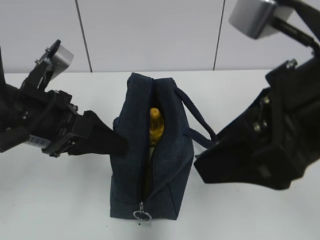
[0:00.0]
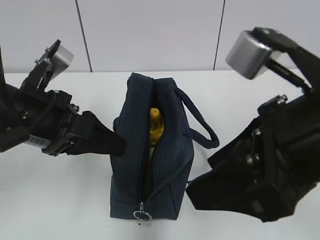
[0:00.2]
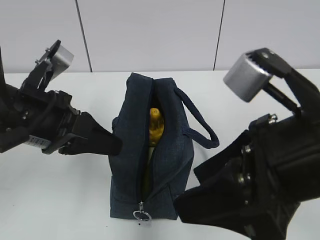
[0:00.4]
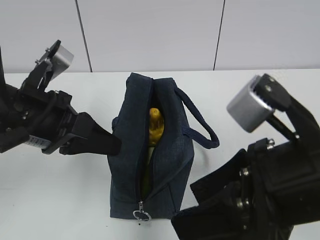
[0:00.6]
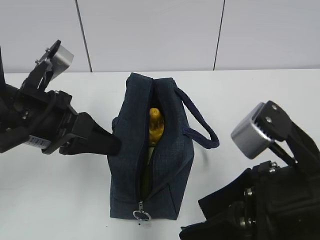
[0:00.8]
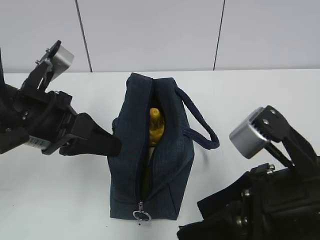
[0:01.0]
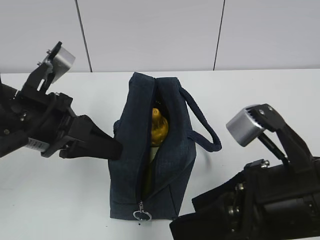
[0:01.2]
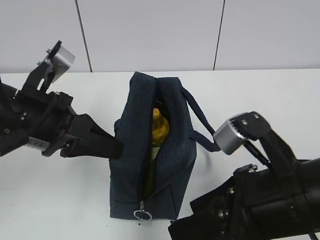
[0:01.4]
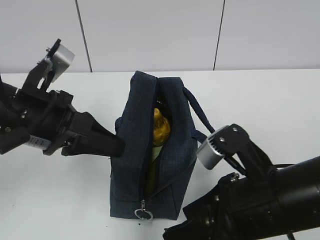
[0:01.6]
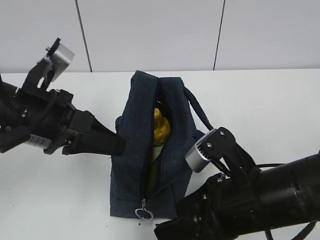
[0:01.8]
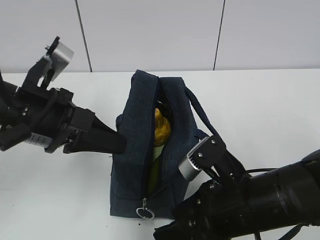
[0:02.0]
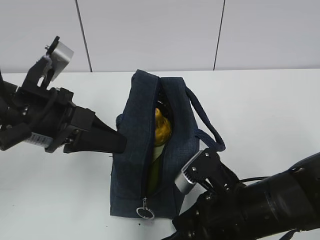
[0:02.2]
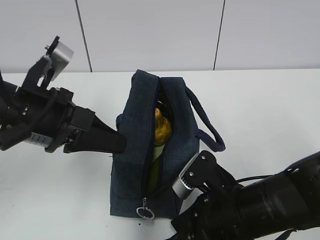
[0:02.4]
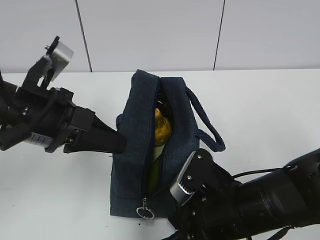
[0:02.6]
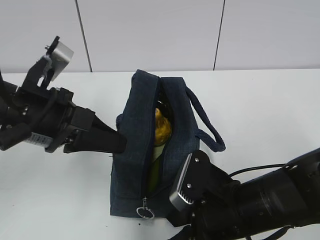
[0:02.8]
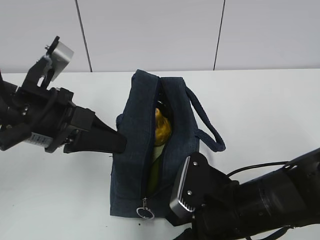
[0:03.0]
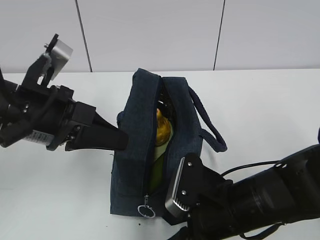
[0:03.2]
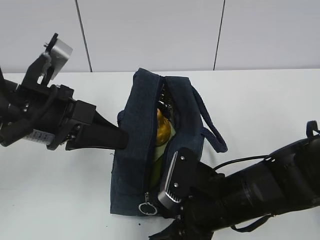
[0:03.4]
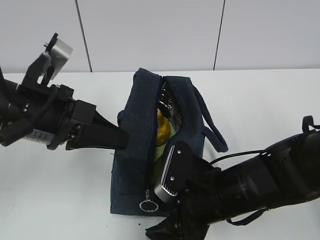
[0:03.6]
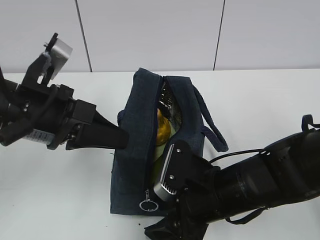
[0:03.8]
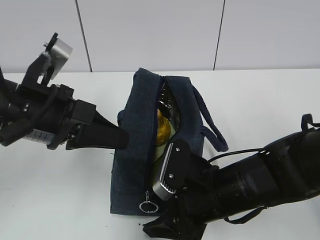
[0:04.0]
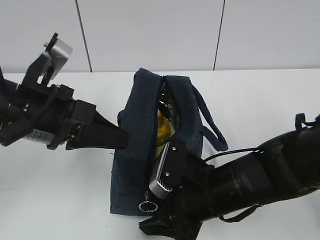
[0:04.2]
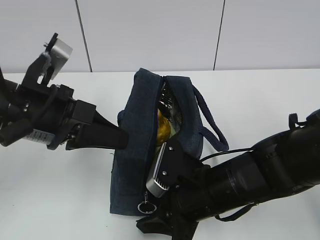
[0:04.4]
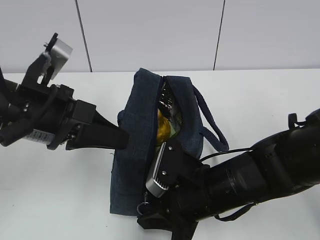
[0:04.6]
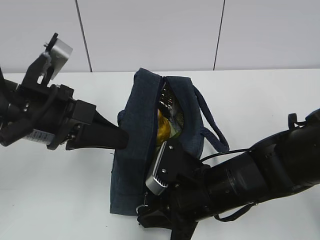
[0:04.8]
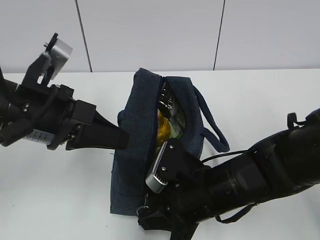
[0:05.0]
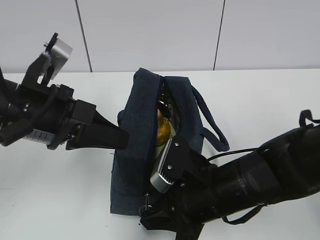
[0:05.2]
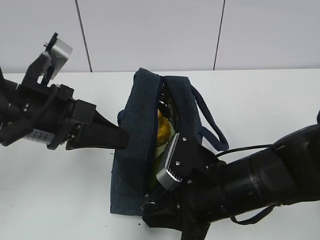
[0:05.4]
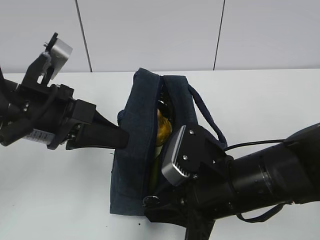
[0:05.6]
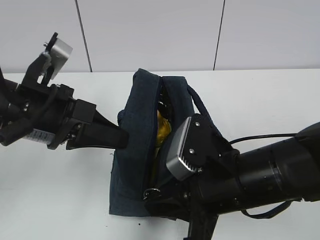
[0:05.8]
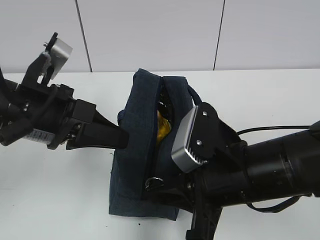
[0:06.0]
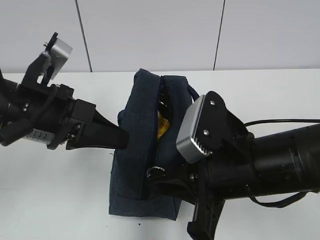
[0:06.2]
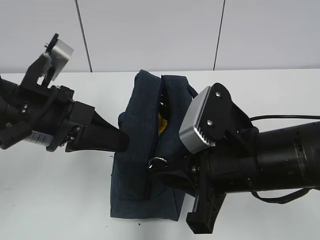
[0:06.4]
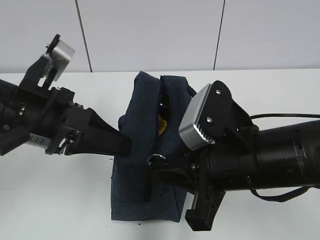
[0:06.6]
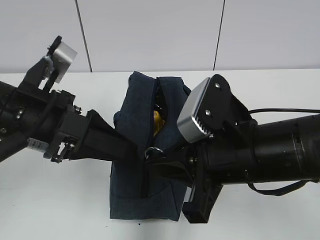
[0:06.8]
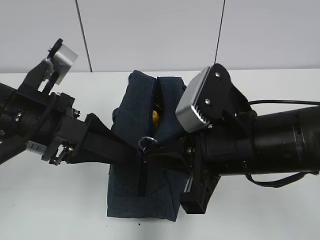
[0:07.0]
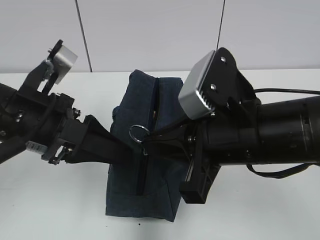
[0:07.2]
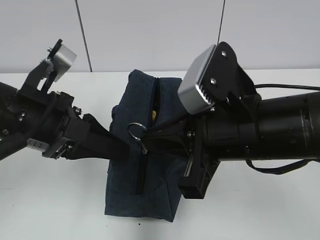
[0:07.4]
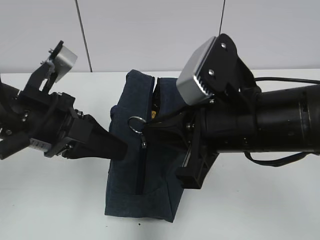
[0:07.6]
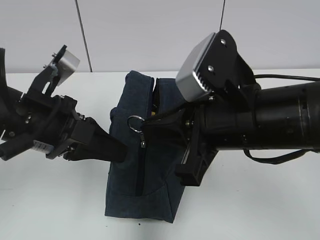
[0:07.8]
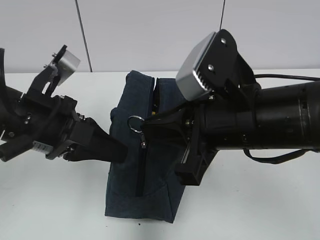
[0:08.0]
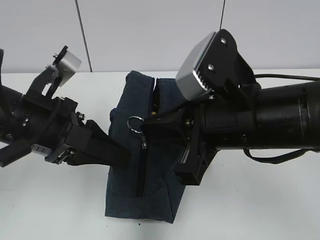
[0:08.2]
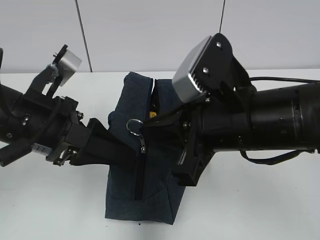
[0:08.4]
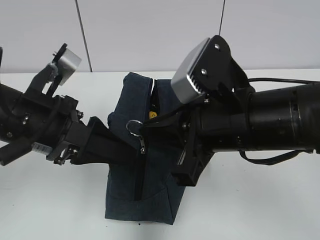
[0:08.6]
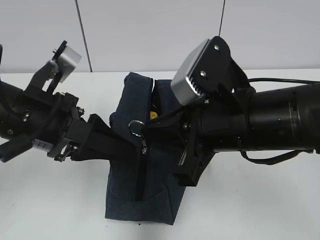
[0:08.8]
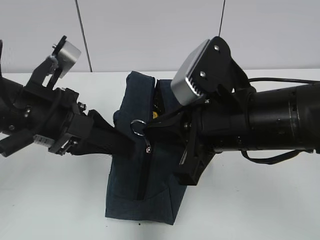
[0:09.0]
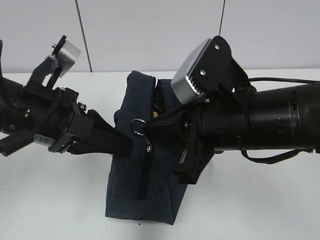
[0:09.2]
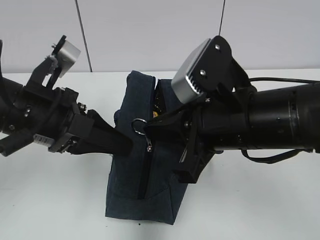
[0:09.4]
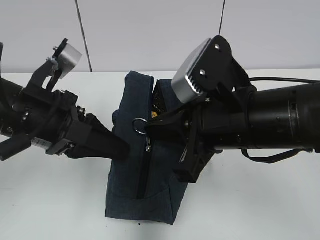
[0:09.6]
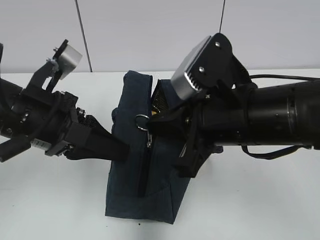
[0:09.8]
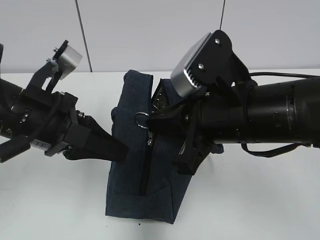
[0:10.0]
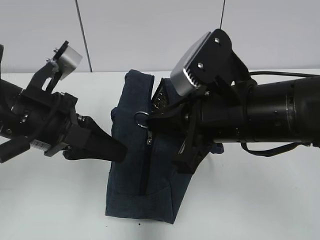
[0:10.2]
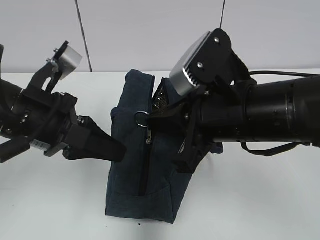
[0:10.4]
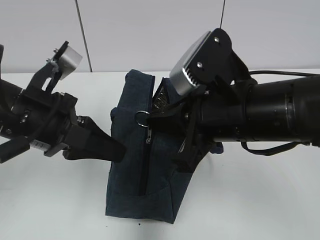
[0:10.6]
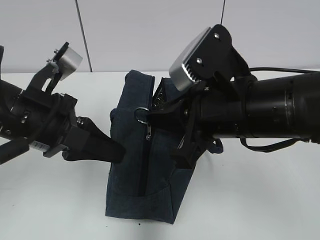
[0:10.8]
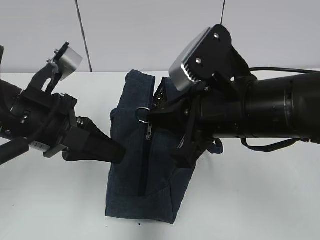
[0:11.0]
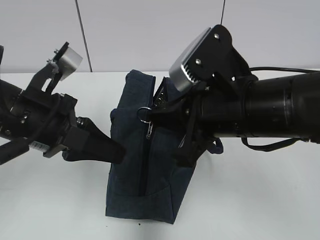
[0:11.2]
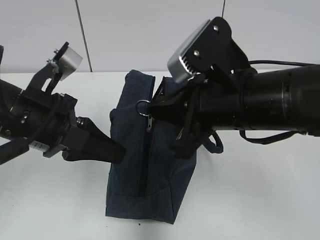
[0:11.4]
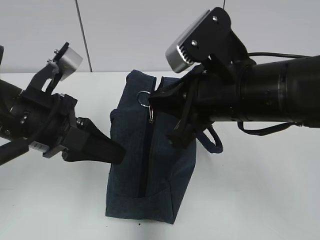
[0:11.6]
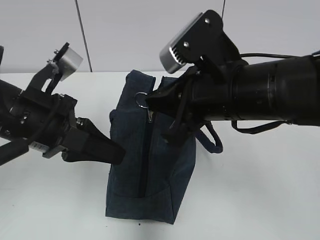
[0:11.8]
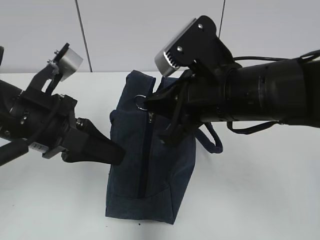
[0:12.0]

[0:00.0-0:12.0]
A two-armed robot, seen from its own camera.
0:00.0 to 0:01.6: The left gripper closes its fingers. Meanwhile the right gripper shifts some 15 cm downward.
0:01.6 to 0:03.0: The right gripper shifts about 5 cm downward.
0:03.0 to 0:04.4: The right gripper closes.
0:04.4 to 0:06.0: The right gripper is displaced upward by about 10 cm, and closes.
0:06.0 to 0:07.6: The left gripper opens and closes again. The right gripper moves upward, some 5 cm.
0:07.6 to 0:09.0: The left gripper opens, then closes again.
0:09.0 to 0:10.4: The left gripper closes its fingers.
0:10.4 to 0:12.0: The grippers stay close to where they were, moving slightly.

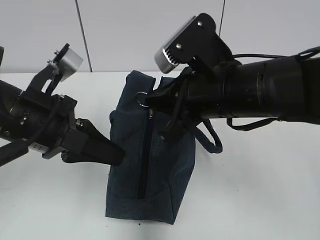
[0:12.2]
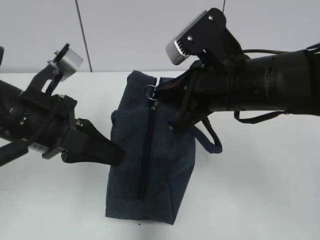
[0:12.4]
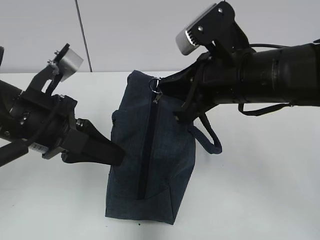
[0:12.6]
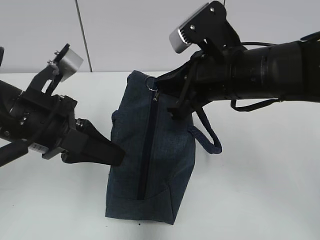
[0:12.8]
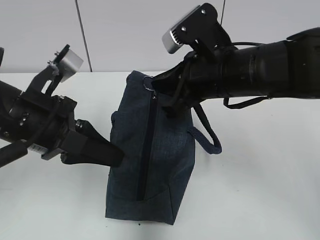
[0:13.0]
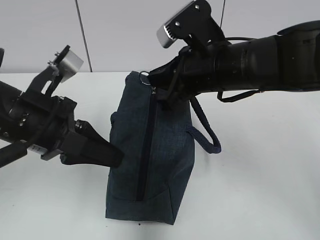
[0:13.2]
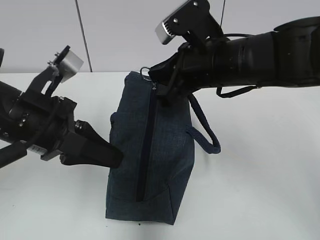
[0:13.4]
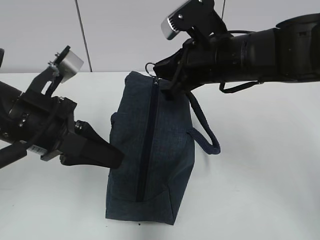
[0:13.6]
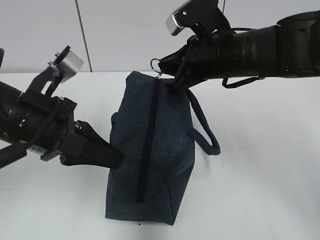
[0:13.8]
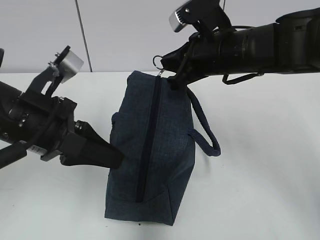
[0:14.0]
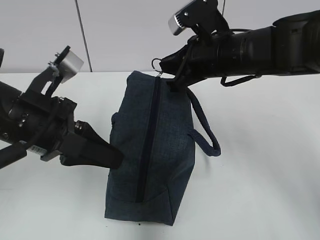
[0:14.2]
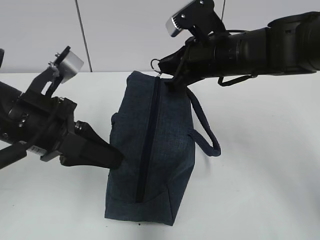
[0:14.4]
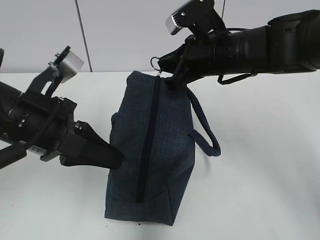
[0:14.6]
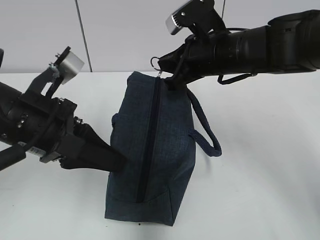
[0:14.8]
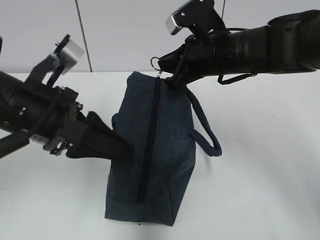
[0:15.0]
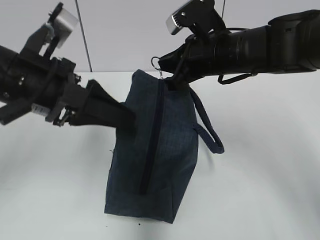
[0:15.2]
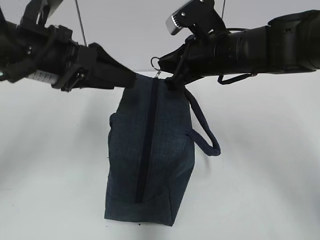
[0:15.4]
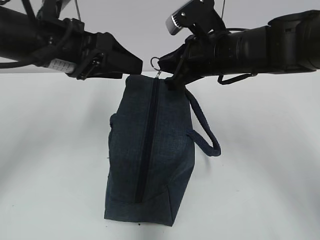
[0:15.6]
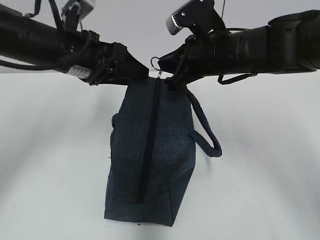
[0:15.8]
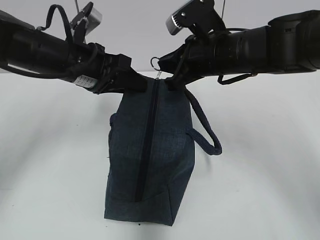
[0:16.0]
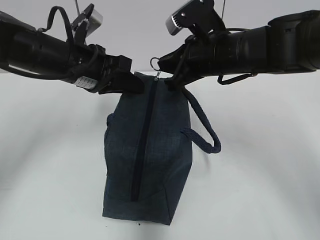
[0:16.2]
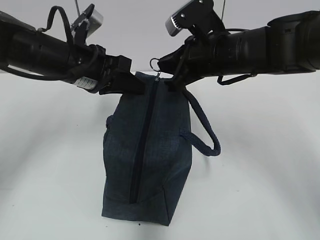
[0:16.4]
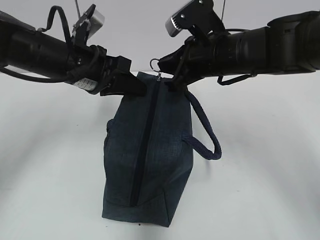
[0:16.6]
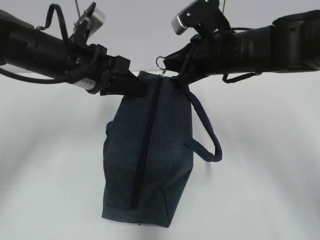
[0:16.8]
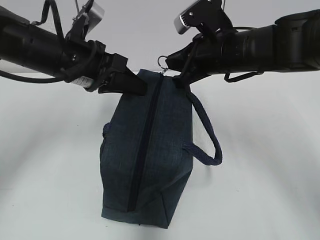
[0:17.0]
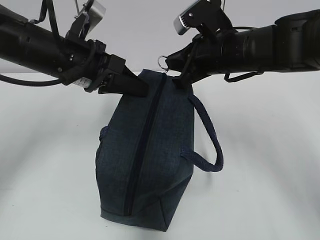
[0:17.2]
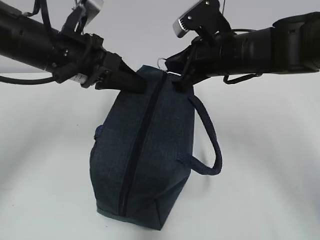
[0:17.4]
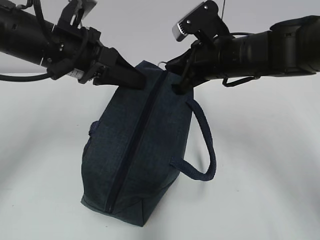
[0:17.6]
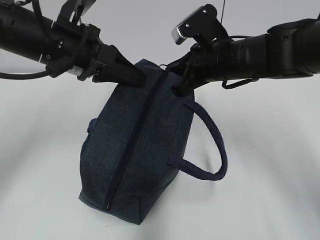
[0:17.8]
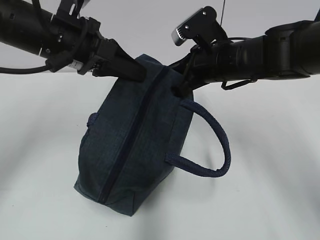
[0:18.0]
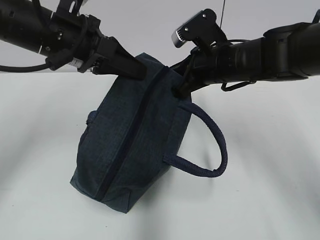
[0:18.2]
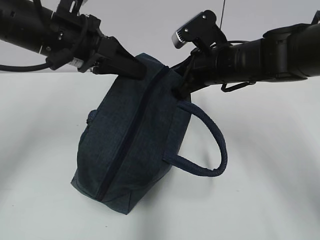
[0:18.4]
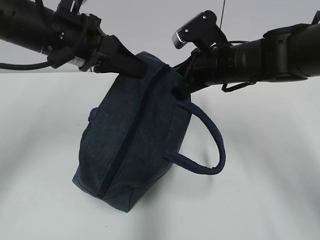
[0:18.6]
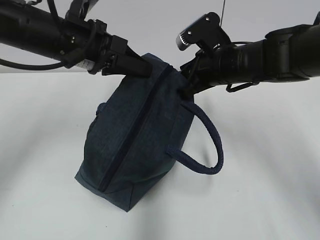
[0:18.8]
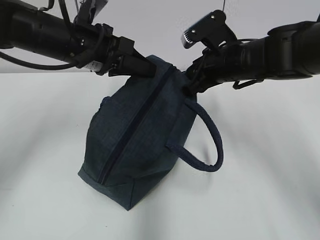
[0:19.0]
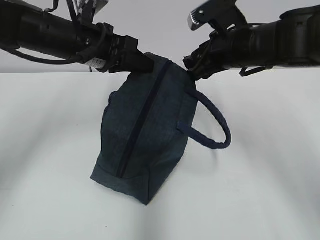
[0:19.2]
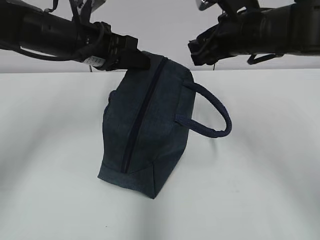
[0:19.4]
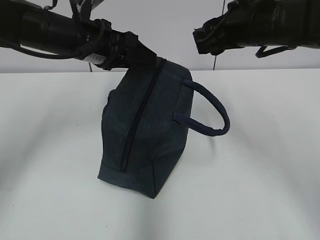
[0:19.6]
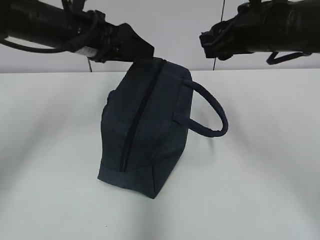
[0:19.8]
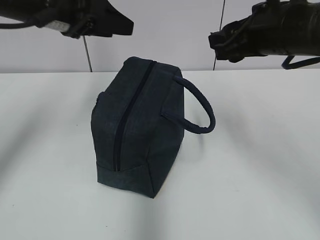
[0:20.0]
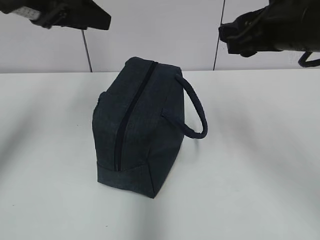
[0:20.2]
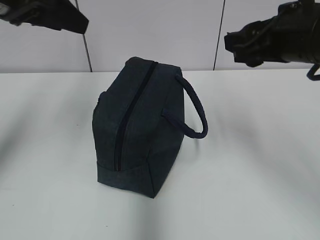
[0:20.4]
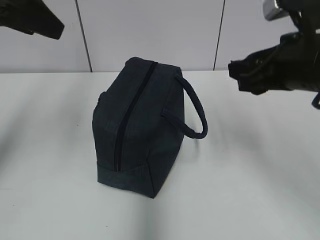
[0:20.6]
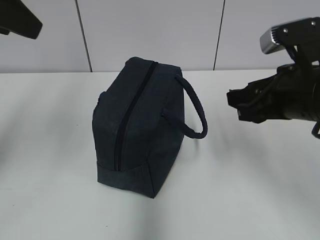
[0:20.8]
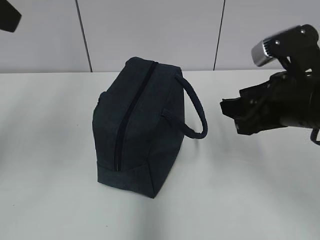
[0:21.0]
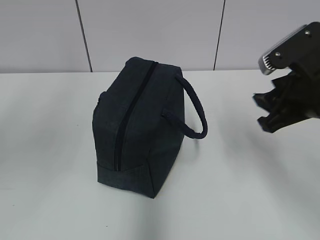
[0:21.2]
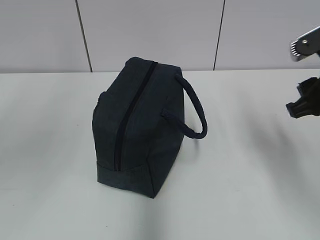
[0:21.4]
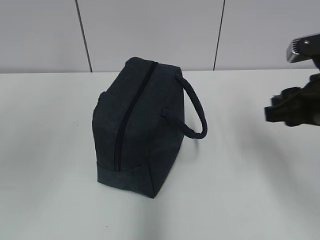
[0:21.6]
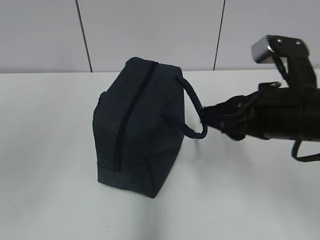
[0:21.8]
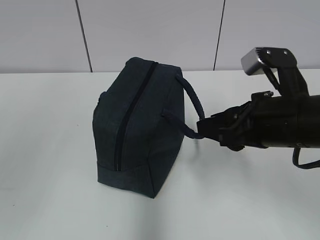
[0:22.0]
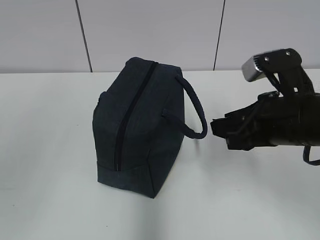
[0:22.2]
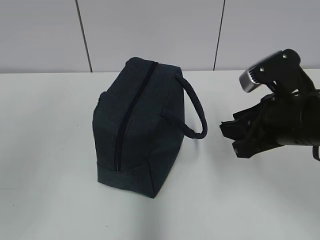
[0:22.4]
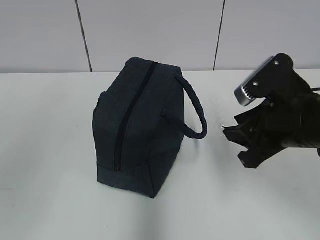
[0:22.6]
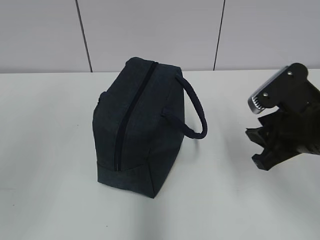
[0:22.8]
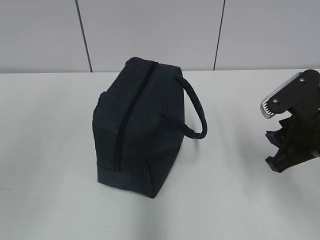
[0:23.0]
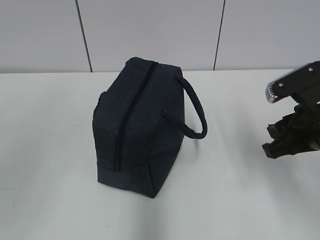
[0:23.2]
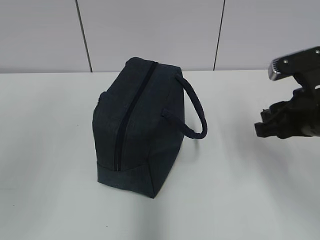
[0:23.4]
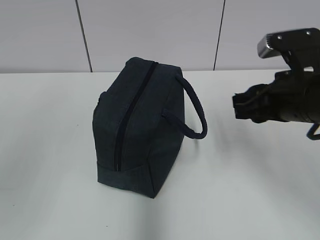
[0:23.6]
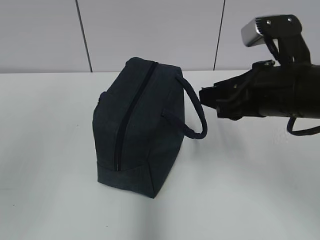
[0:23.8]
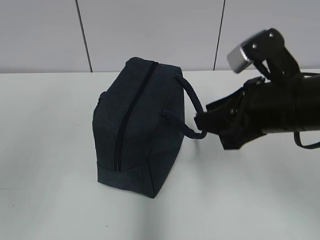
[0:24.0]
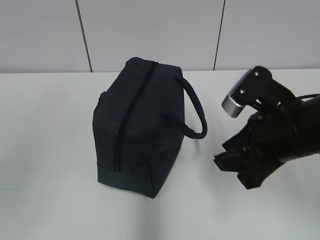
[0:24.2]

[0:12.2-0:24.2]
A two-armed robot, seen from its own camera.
Step, 0:12.2 to 0:18.6: Pull the zipper with your right hand.
Step, 0:18.8 to 0:19.6: Grab the lunch bag with your left hand.
0:12.2 to 0:13.8: The right gripper goes about 10 cm forward.
0:13.8 to 0:15.2: The left gripper opens its fingers.
0:15.2 to 0:16.6: The left gripper shifts approximately 10 cm forward, and closes up.
0:16.6 to 0:18.2: The left gripper is displaced upward by about 5 cm.
0:18.2 to 0:19.8: The left gripper opens its fingers; the right gripper travels upward by approximately 5 cm, and opens.
0:19.8 to 0:21.2: The right gripper is displaced backward and downward by approximately 10 cm; the left gripper moves backward, upward and to the left, about 25 cm.
